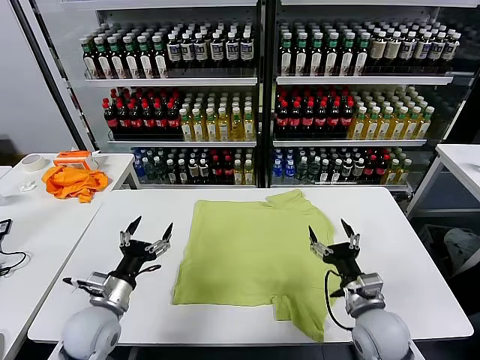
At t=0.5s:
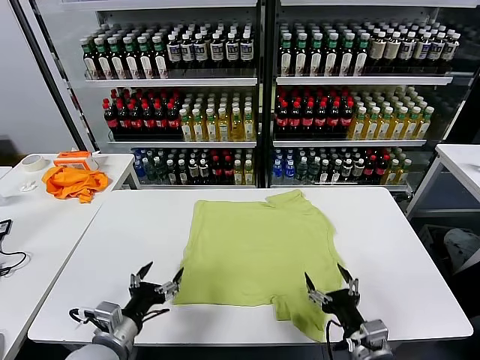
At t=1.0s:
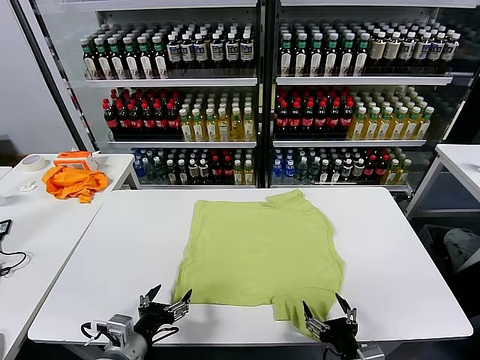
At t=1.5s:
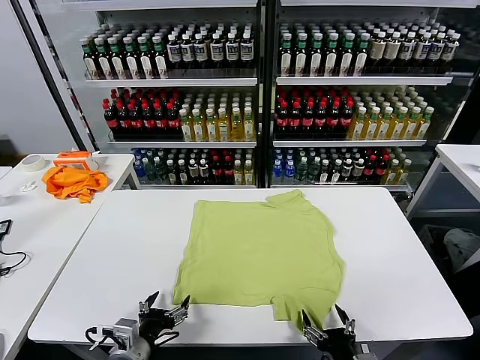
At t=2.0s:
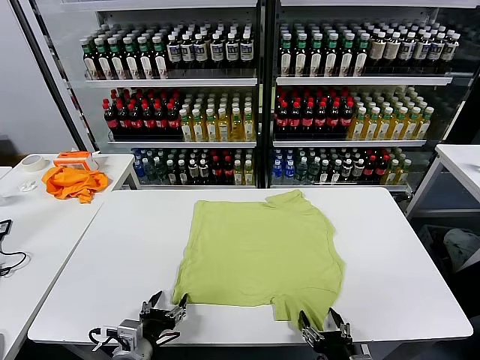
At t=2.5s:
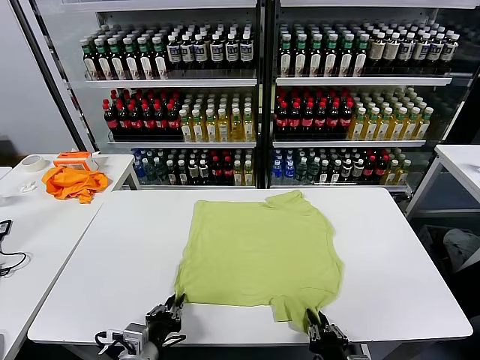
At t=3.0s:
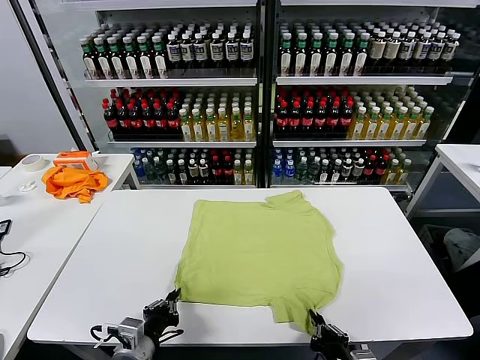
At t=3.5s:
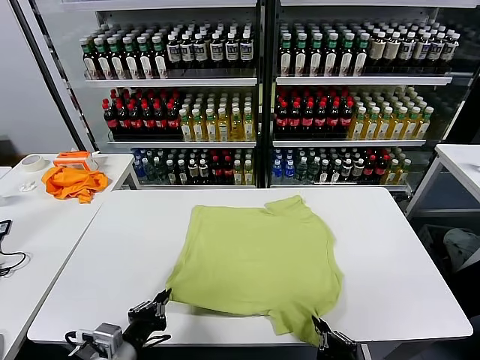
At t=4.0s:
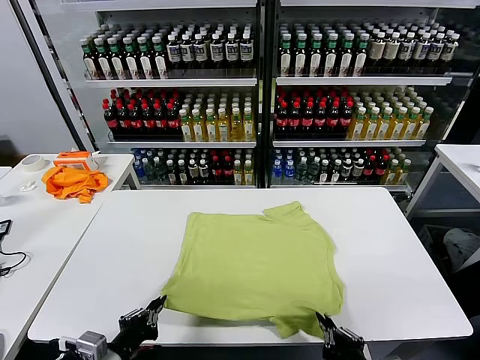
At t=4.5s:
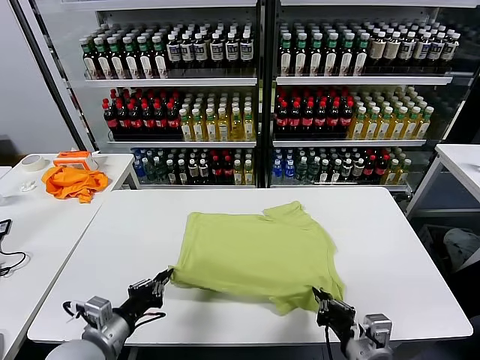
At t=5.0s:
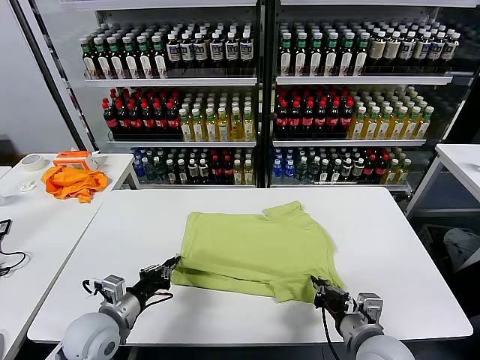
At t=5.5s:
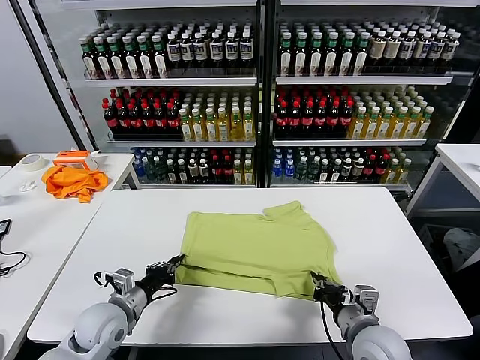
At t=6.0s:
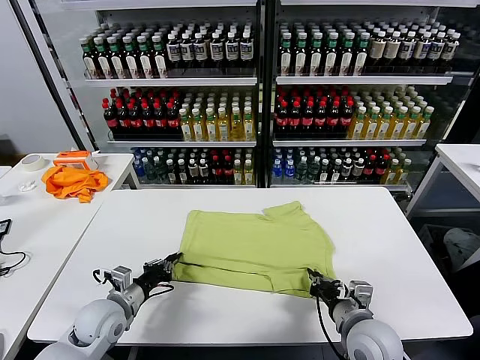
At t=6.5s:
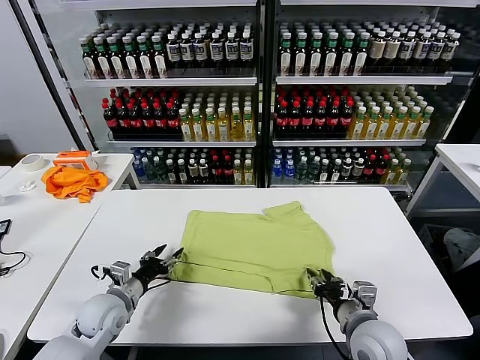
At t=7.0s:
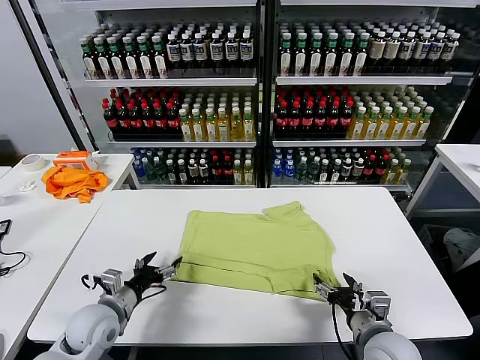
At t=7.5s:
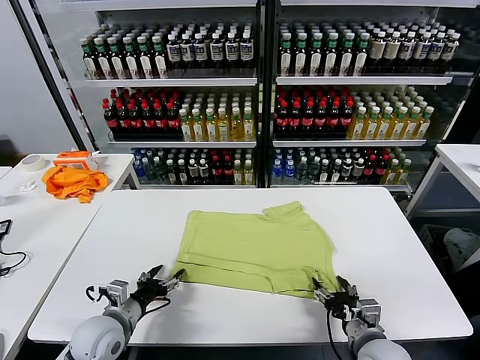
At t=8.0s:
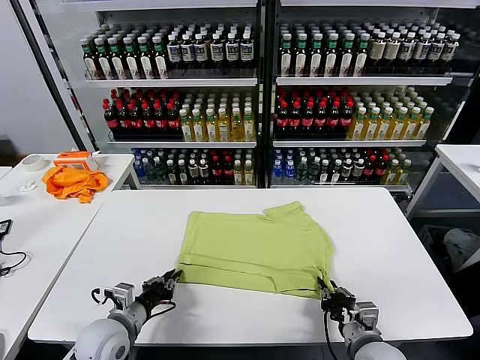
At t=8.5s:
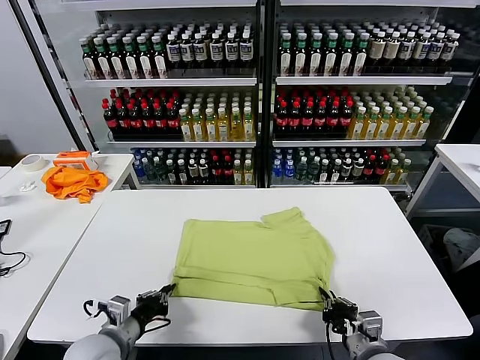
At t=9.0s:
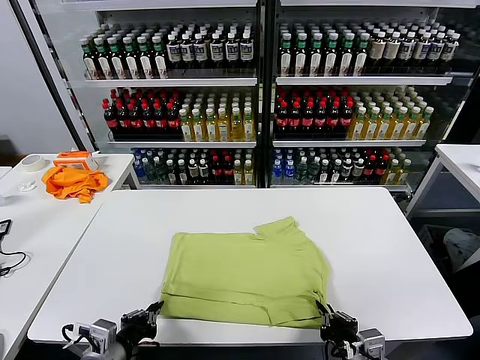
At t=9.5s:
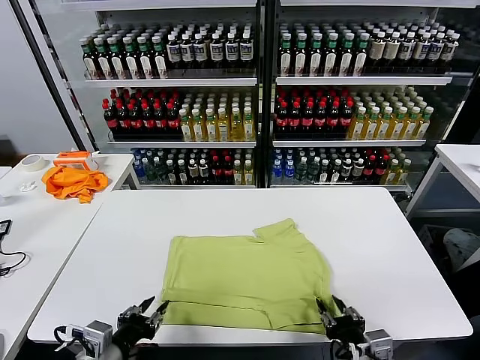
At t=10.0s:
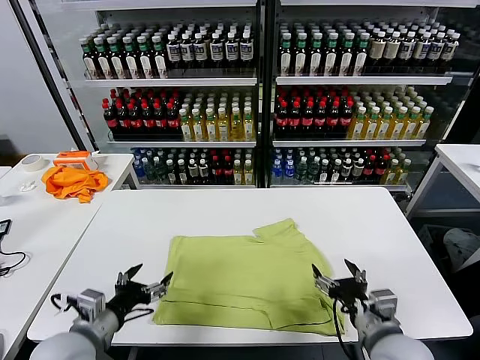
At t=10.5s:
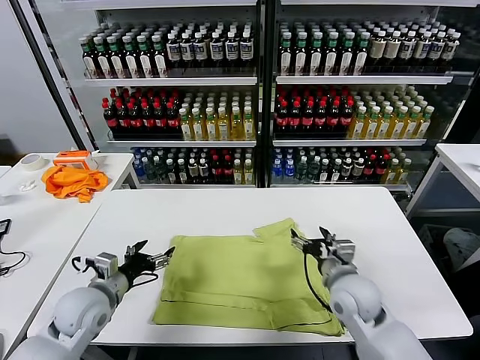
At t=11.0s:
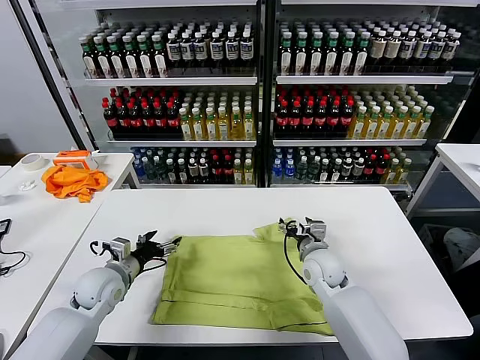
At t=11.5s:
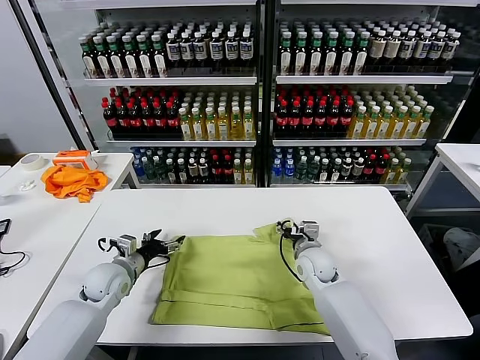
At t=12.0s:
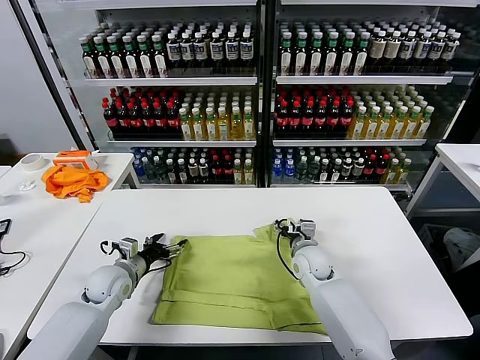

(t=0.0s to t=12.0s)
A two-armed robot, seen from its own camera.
Task of the whole recording: fold and organize the clothes.
Step, t=0.0s - t=2.5s: use both grippers simultaneously to clamp the lower edge of the clothing fabric.
Step, t=3.0s - t=6.5s: use both grippers to drag the lower edge of the fabric forward and fold it over the upper edge.
Step, t=7.0s - t=9.0s: Drag the clothes downward with both gripper.
t=2.0s - t=4.0s: The two grippers go approximately 10 cm upward. The left gripper closes up. The right gripper closes its fingers.
t=4.0s - t=6.0s: The right gripper shifts about 10 cm forward. The left gripper travels forward and downward by roughly 20 cm.
t=6.0s - t=8.0s: The left gripper moves approximately 5 cm, and opens, then closes once more. Meanwhile the right gripper moves some 5 cm, and opens, then closes again.
t=8.0s - t=10.0s: Both grippers travel together upward, roughly 10 cm. The right gripper opens up. The left gripper opens its fingers.
t=10.0s - t=12.0s: The grippers both shift forward and downward by some 20 cm.

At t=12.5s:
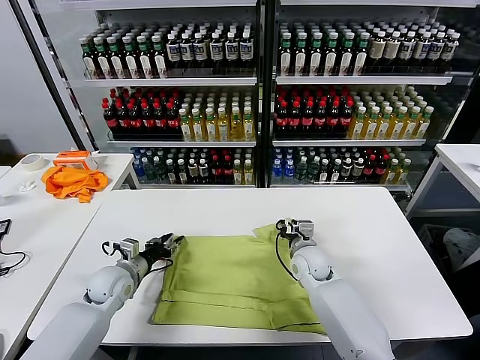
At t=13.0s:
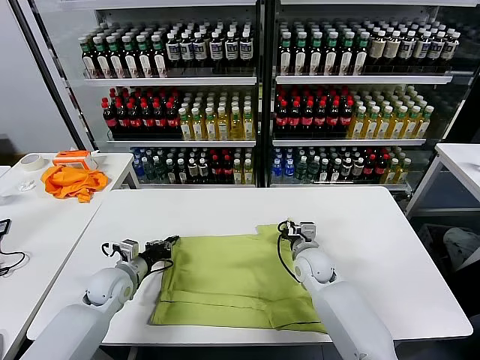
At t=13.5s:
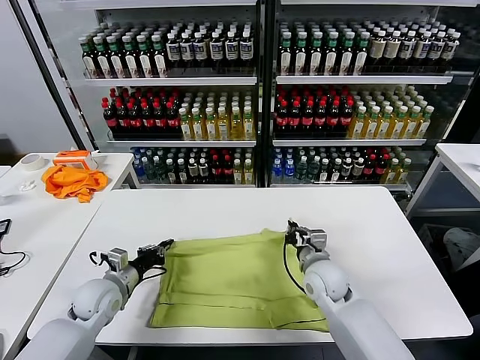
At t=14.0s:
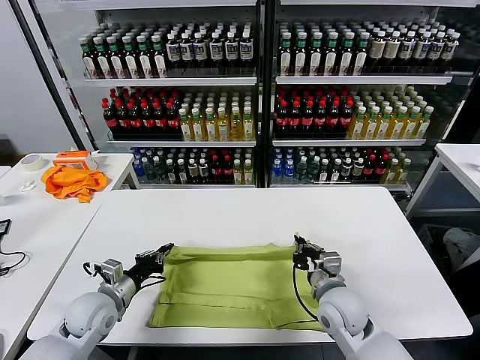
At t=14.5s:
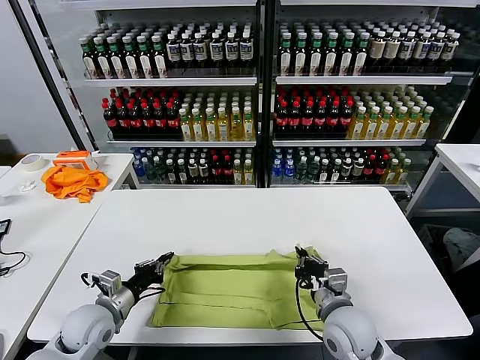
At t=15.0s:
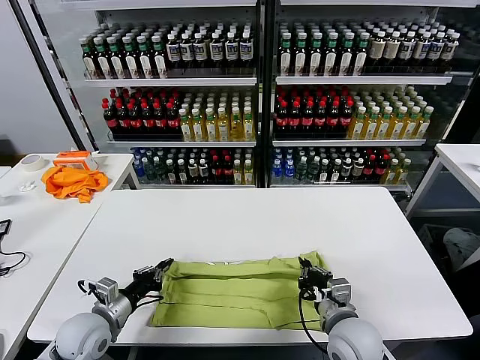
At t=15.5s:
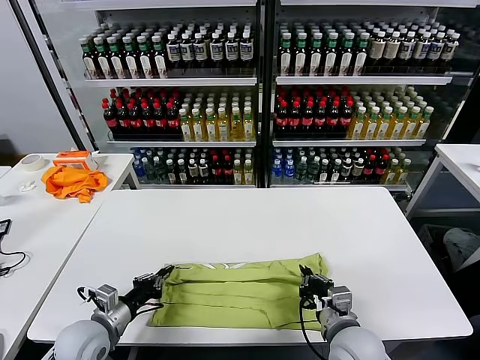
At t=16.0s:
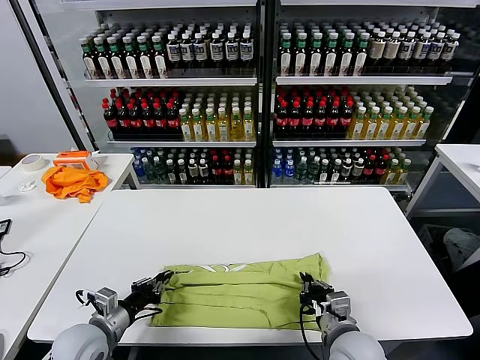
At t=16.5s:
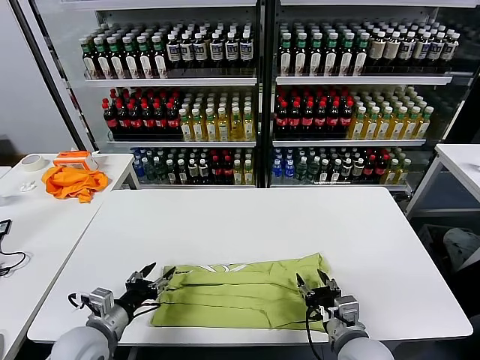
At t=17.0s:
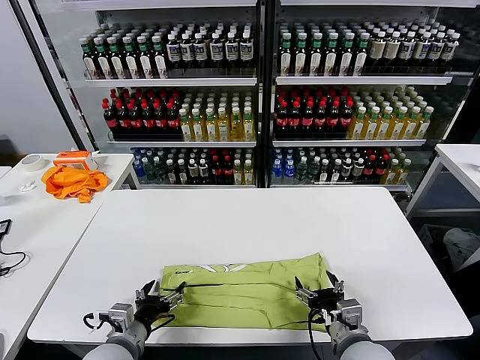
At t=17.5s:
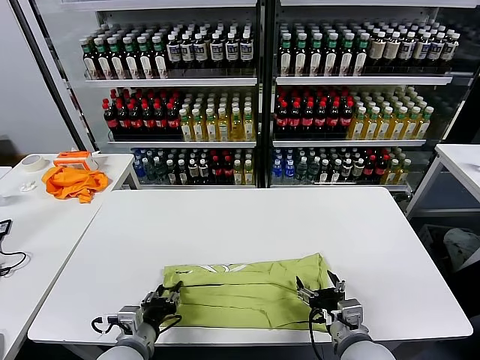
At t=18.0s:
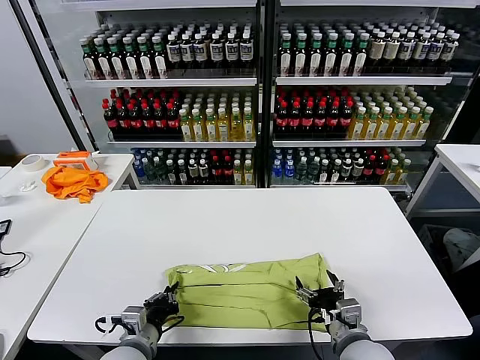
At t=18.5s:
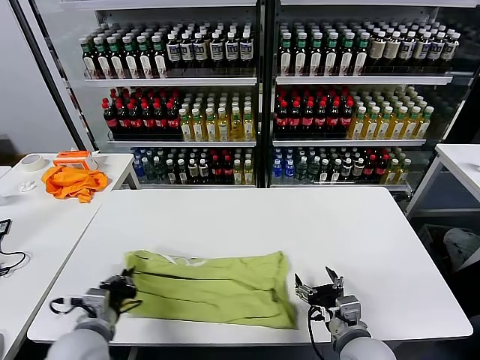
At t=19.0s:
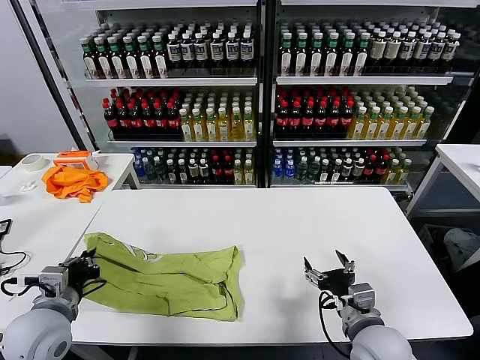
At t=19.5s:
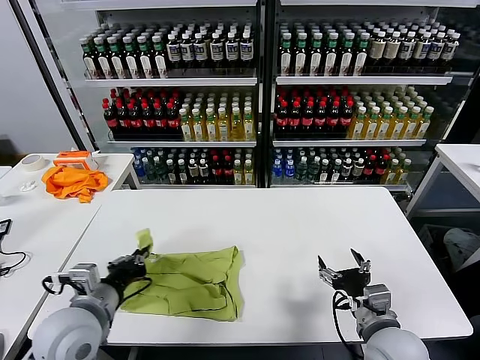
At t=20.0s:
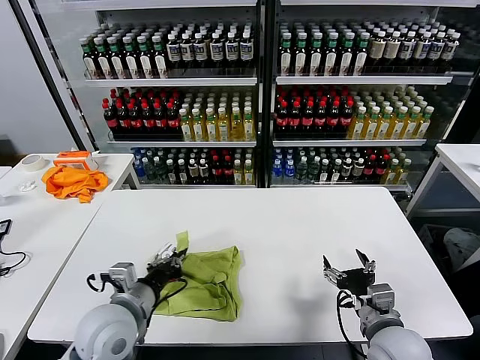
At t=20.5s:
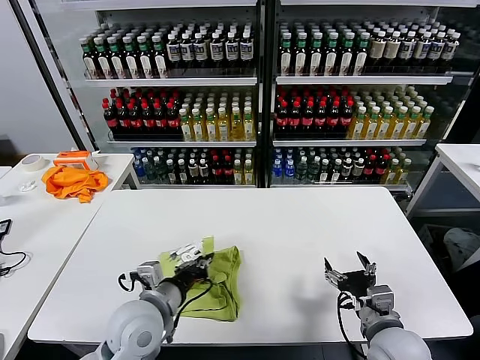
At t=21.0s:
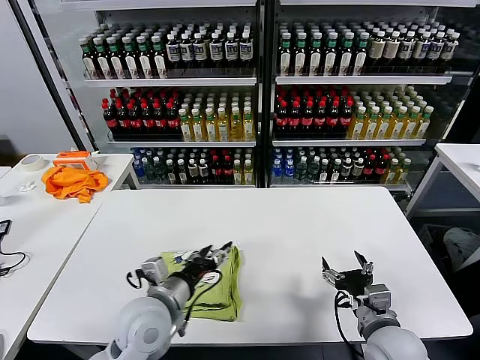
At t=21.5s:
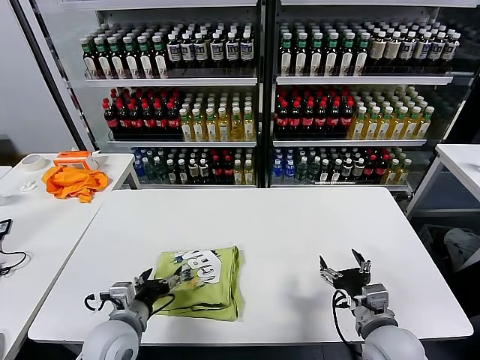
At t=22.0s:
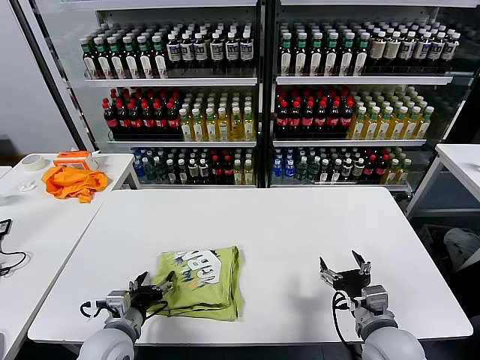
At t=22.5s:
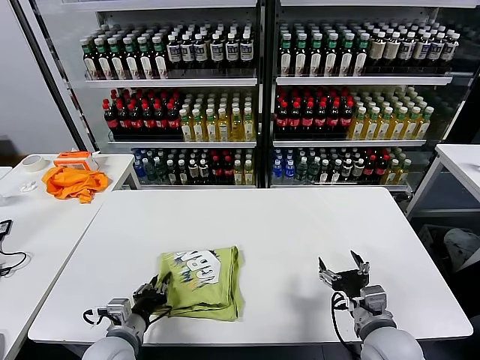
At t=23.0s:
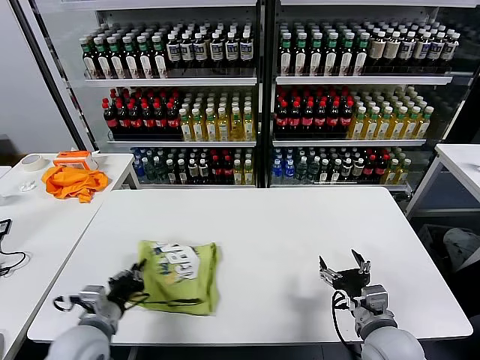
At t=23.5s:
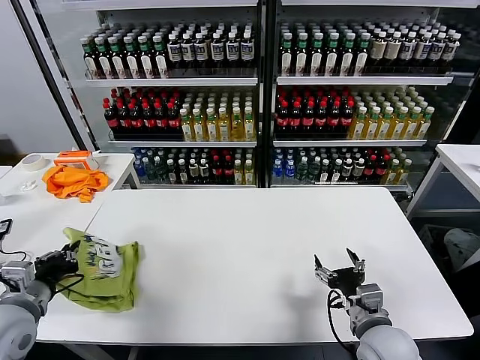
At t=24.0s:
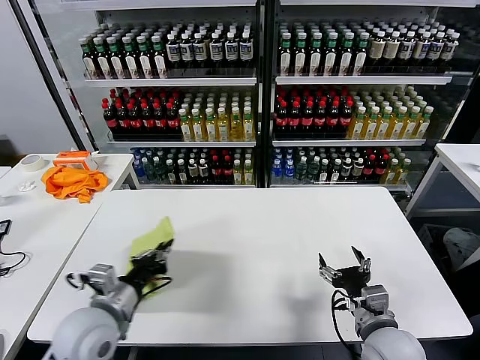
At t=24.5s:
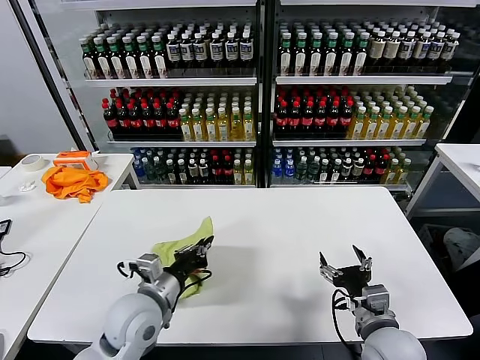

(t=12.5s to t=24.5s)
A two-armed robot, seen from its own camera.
Task of the whole recording: fold and organize the clothes.
Step, t=13.5s - t=16.0s: use both grippers to drag the upper edge of the fabric backward and fold it over the lower edge.
Step, t=16.5s - t=17.5s: use the left gripper to clamp the left edge of the fabric.
Step, t=18.0s - t=20.5s: use the left gripper to drag the left edge of the fabric to the left and folds it over the right edge.
t=12.5s - t=14.5s: The left gripper goes roughly 10 cm backward, and closes up; the right gripper travels backward by approximately 20 cm, and closes its fingers.
t=14.5s - t=16.5s: The two grippers go roughly 5 cm backward. The right gripper opens. The left gripper opens its fingers.
t=16.5s - t=18.5s: The left gripper reaches approximately 10 cm to the right, then returns, and closes its fingers.
t=18.5s - t=20.5s: The right gripper shifts about 5 cm to the right. The left gripper goes some 10 cm to the right.
t=20.5s - t=22.5s: The left gripper is displaced downward and to the left by roughly 15 cm, and opens, then closes once more.
t=22.5s - t=24.5s: The left gripper goes roughly 10 cm upward, and goes to the left and returns, approximately 15 cm each way.

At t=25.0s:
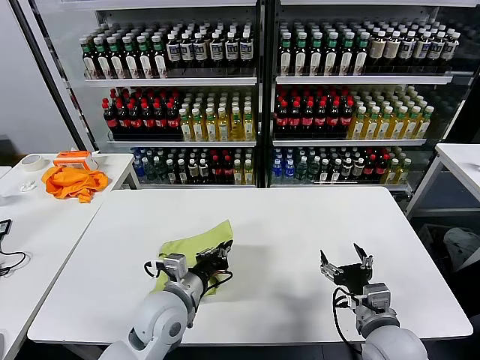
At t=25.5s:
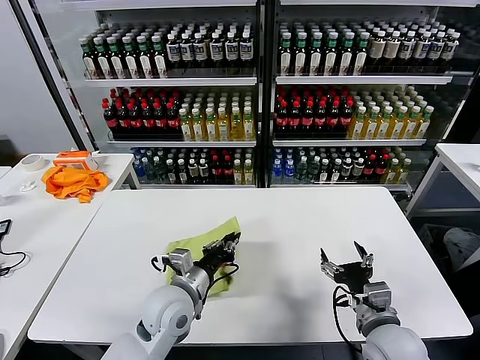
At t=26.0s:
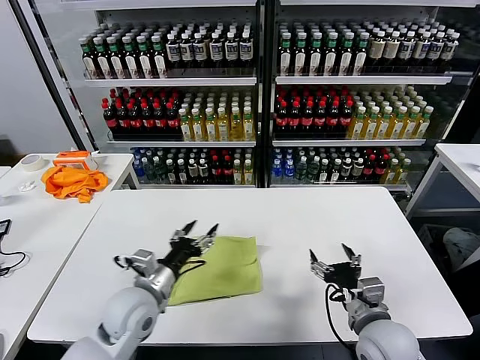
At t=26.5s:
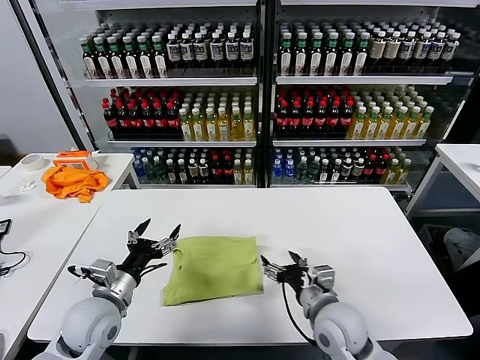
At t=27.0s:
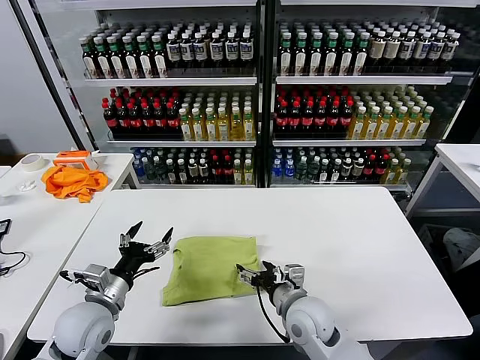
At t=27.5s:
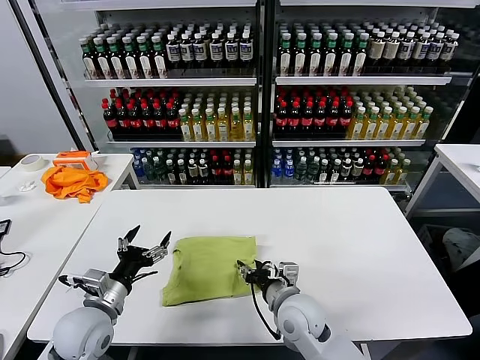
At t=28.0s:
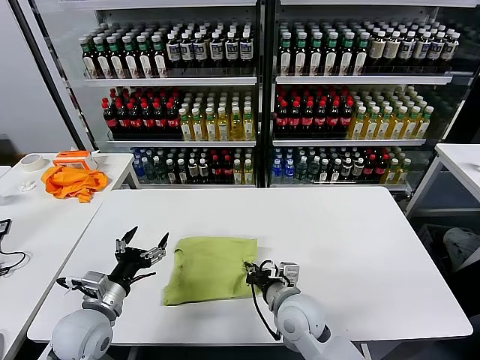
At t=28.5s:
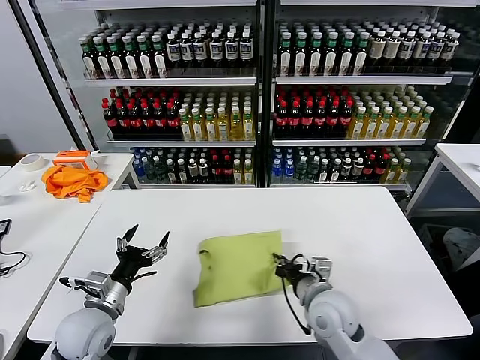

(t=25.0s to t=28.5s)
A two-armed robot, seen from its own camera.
Task of the whole recording: fold and organize the clothes.
t=25.0s - t=27.0s: The right gripper moves to the left and forward, roughly 15 cm. The left gripper moves to the left, about 15 cm, and opens up.
t=27.0s - t=28.5s: The right gripper closes up.
